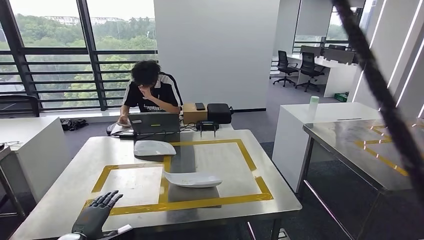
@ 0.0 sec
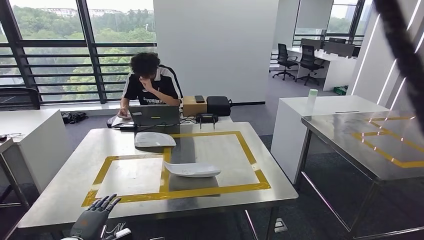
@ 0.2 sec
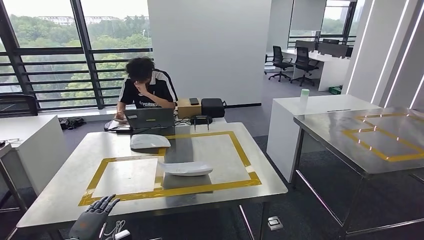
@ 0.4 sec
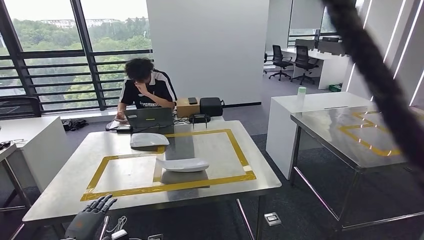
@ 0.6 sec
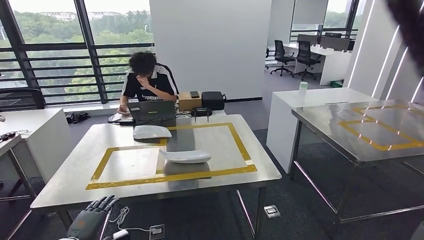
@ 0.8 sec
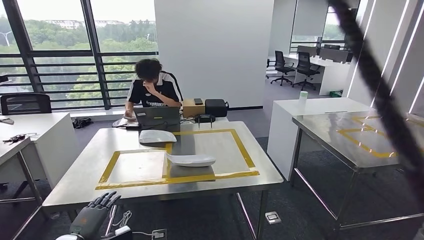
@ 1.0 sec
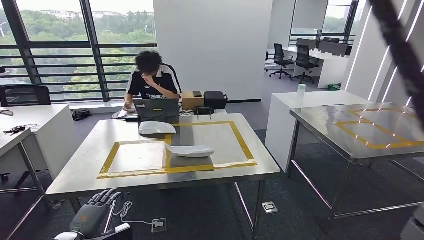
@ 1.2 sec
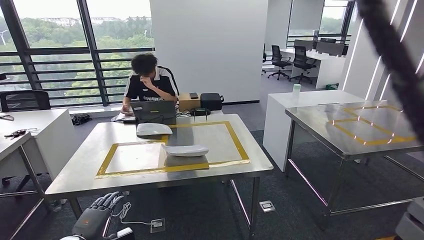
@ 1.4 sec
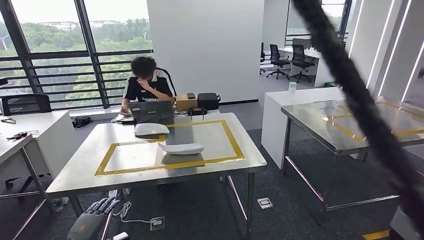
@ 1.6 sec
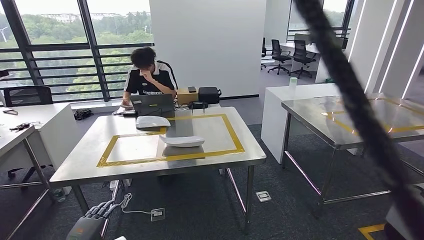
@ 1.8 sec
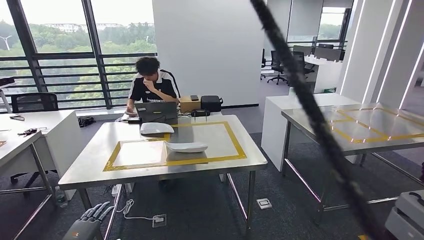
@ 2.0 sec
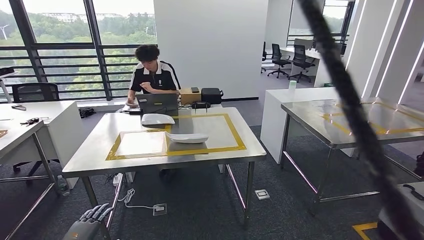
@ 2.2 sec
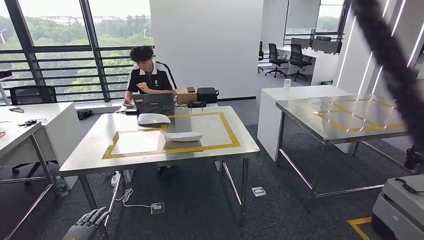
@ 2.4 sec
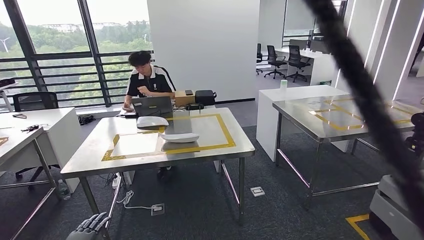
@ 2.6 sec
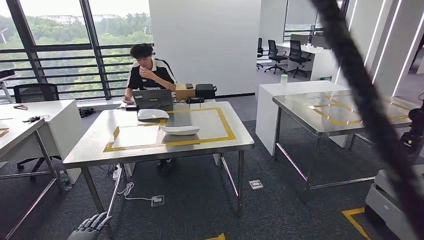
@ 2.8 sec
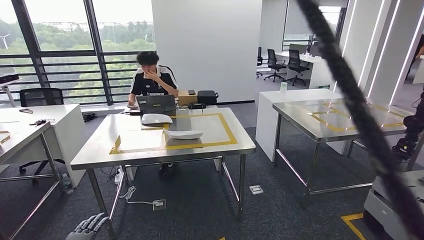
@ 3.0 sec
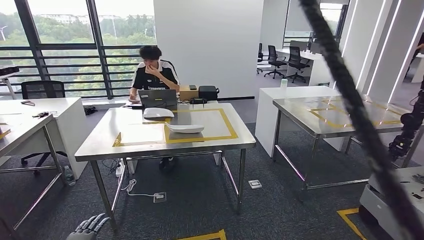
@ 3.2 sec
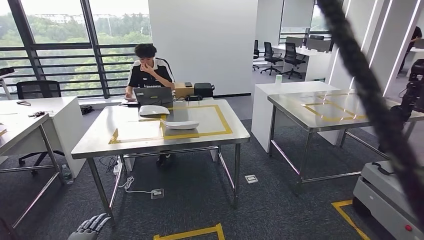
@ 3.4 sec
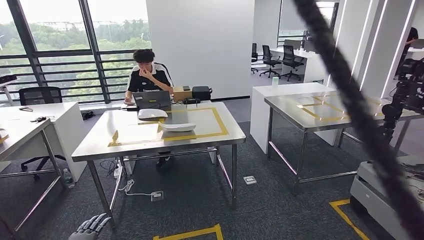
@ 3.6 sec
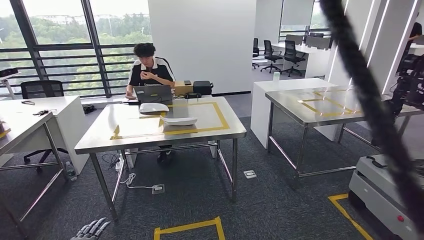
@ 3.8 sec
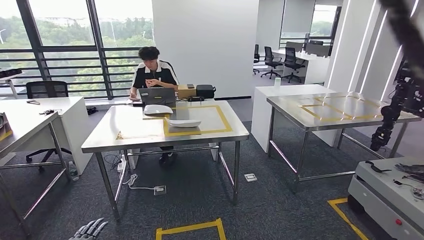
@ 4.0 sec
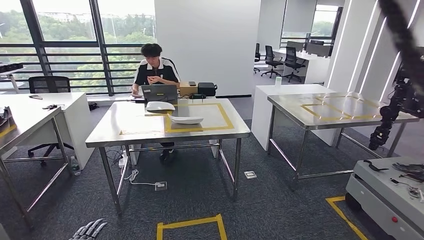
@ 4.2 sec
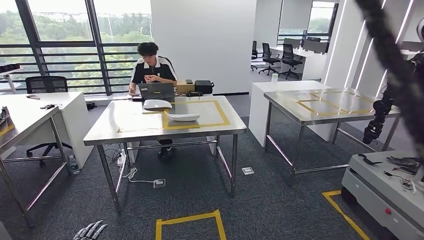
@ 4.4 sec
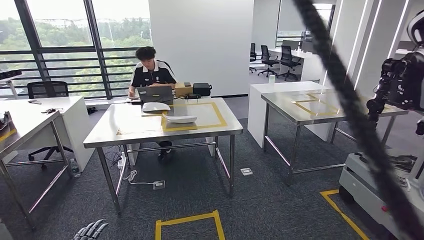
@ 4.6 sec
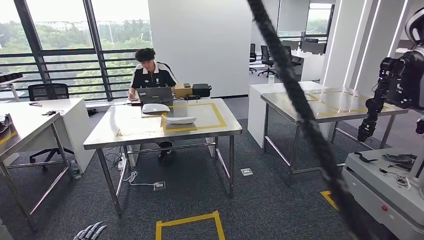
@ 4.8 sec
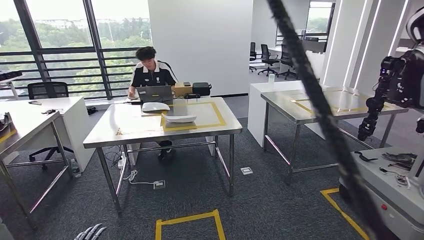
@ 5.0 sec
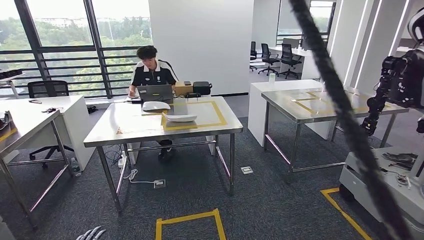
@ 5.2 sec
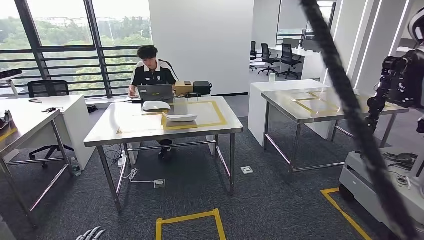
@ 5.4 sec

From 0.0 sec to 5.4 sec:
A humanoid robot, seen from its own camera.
Step, from 0.0 sec to 5.2 sec: Return to the initial position at the workbench.
